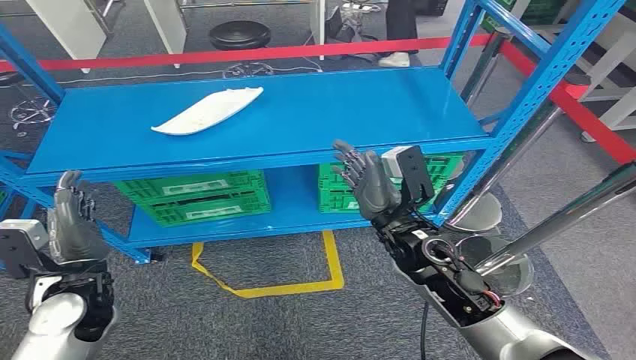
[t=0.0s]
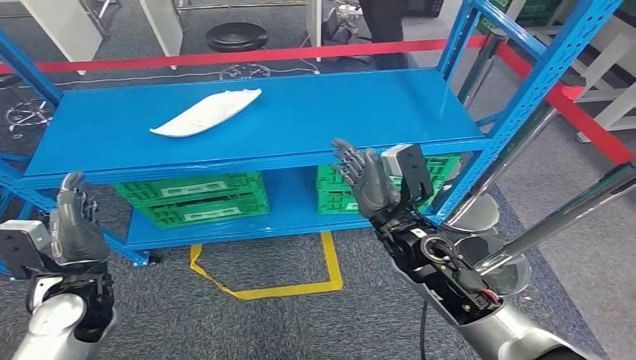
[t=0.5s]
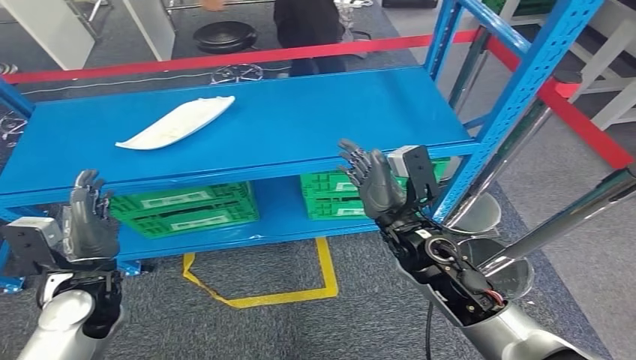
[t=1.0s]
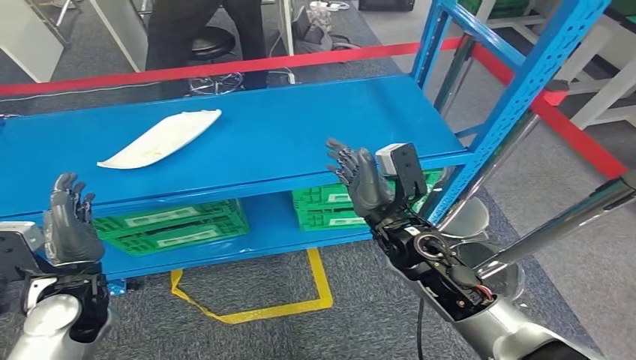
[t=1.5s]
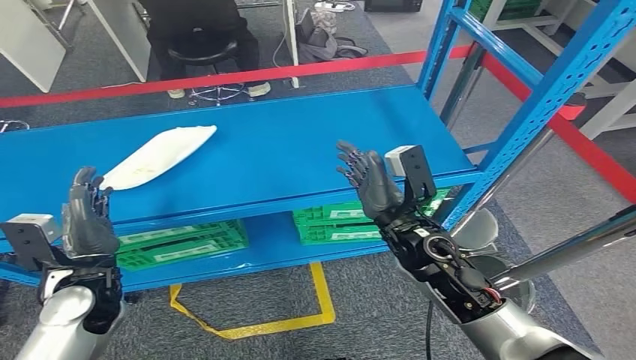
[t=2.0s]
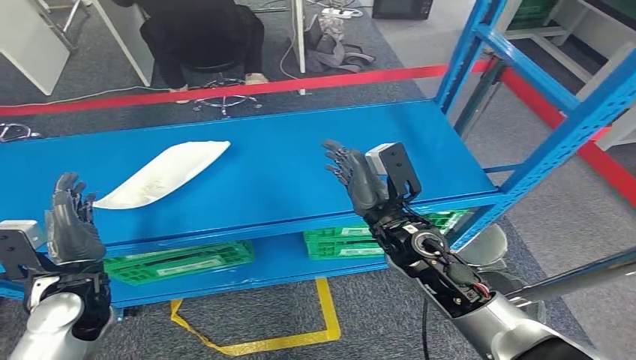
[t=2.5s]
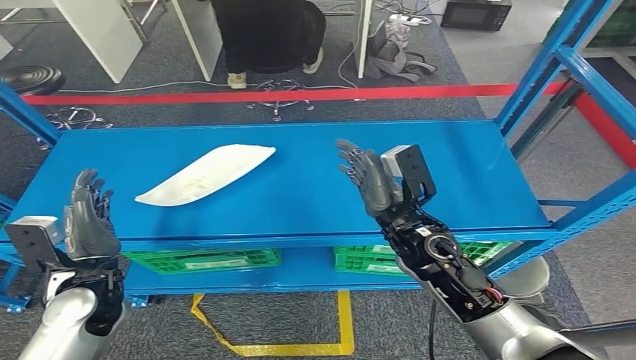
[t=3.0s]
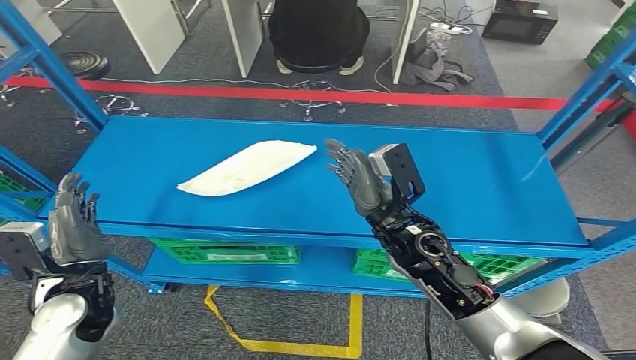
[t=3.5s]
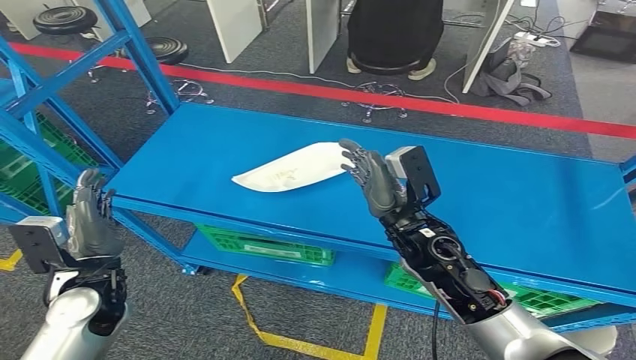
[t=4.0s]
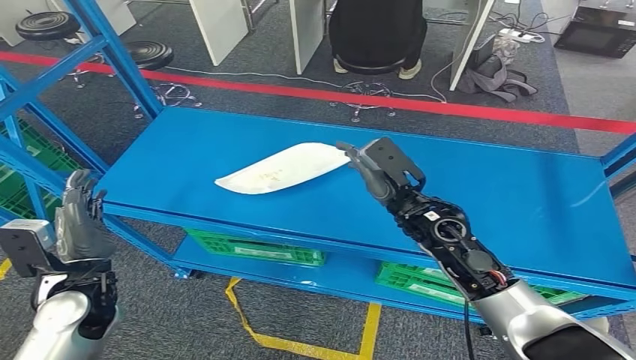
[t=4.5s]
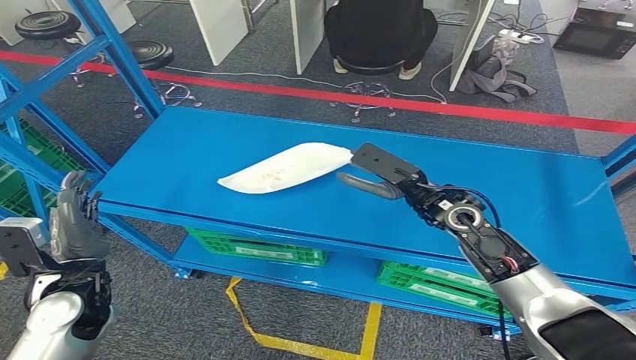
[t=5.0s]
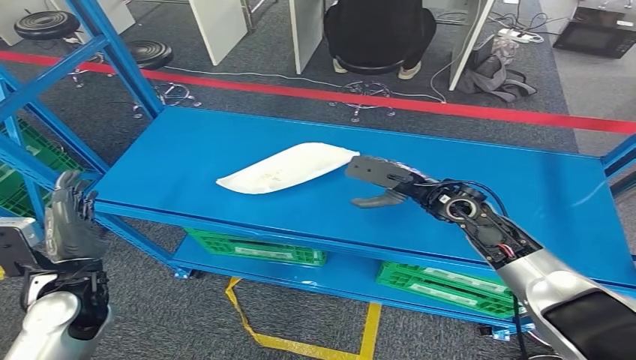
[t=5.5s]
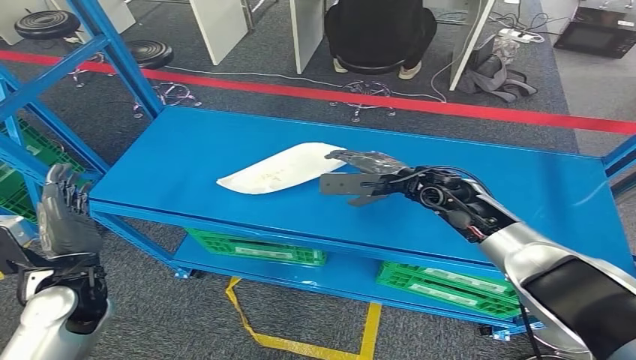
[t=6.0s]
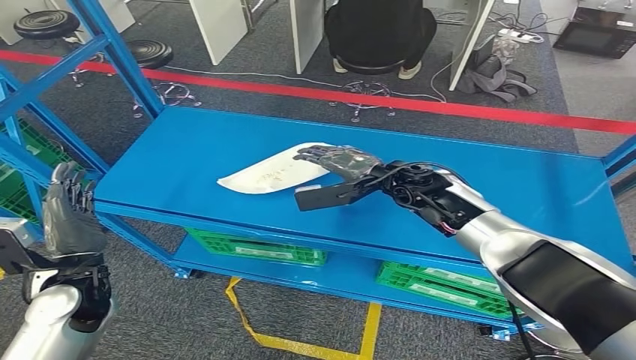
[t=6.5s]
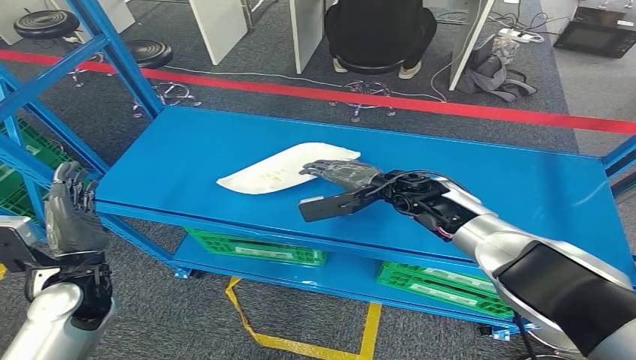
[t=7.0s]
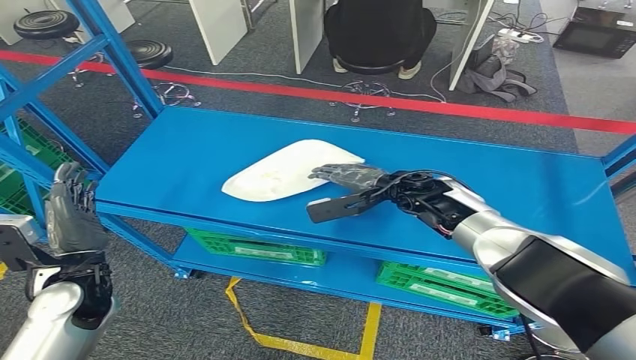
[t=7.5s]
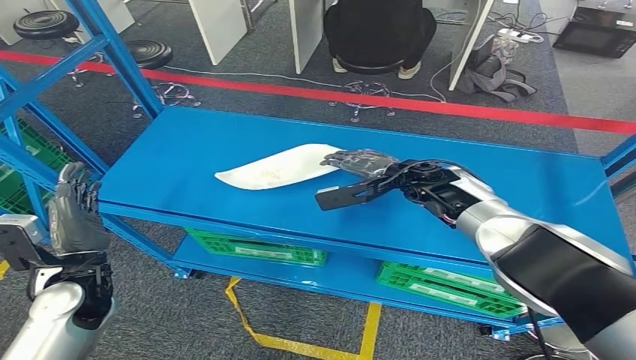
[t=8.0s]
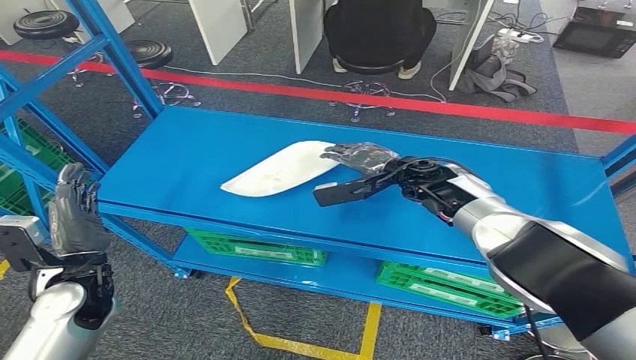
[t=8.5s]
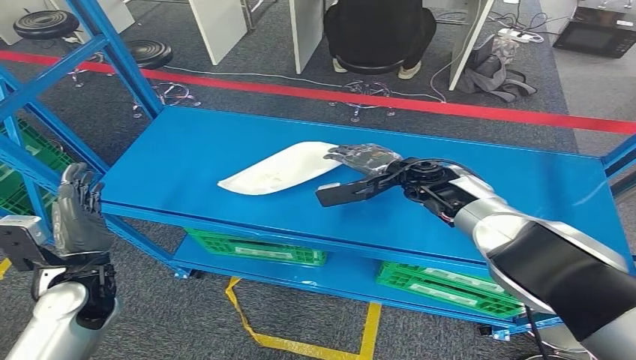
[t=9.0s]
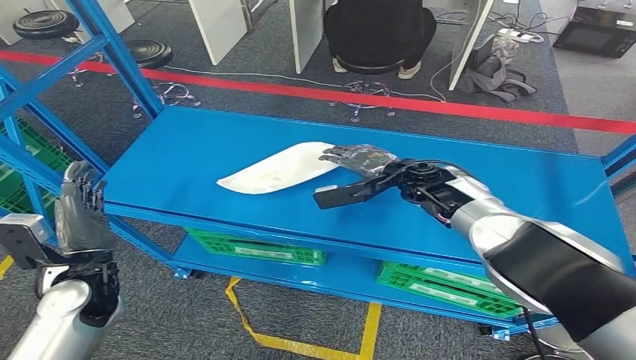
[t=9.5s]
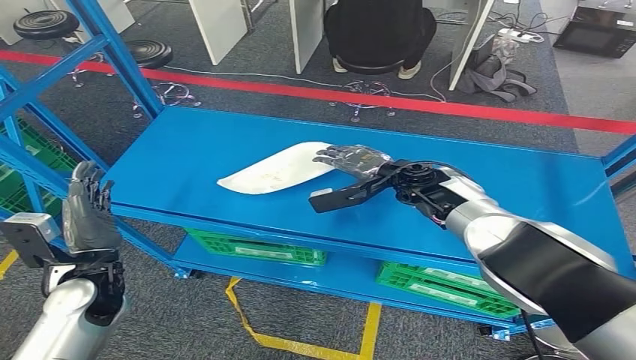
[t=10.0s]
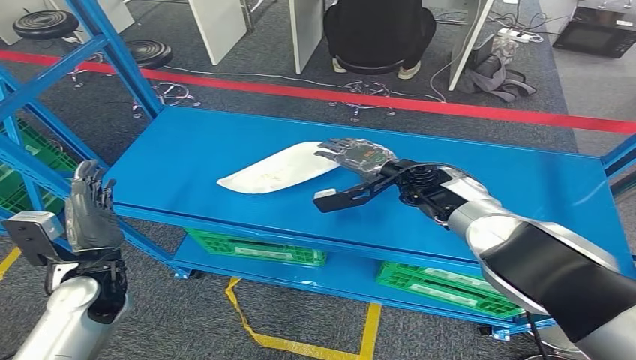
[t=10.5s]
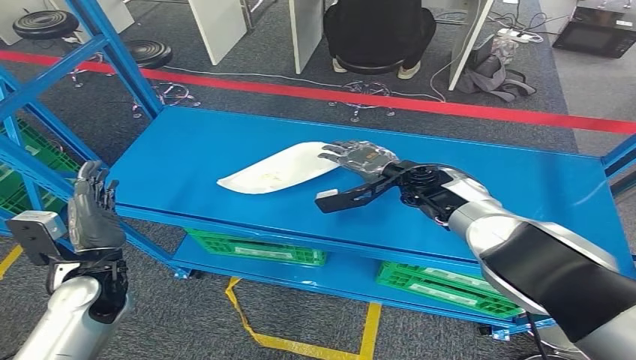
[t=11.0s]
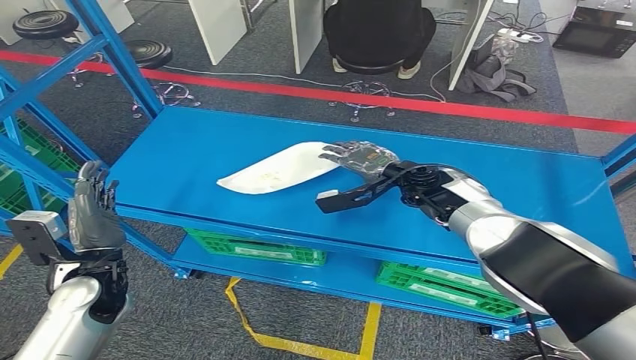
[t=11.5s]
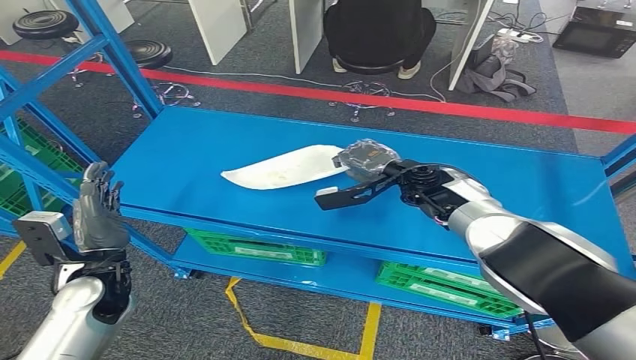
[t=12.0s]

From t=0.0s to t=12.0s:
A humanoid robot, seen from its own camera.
From t=8.0s to t=12.0s: The hands stay close to where they were, moving slightly.

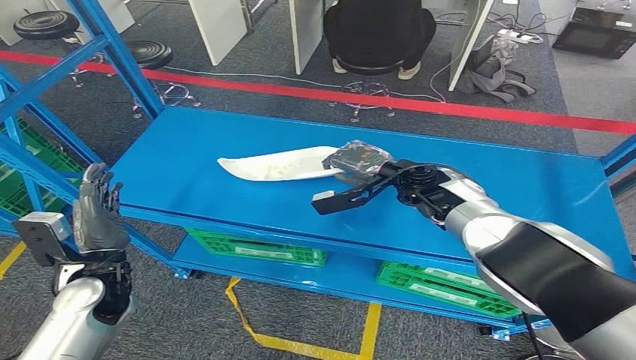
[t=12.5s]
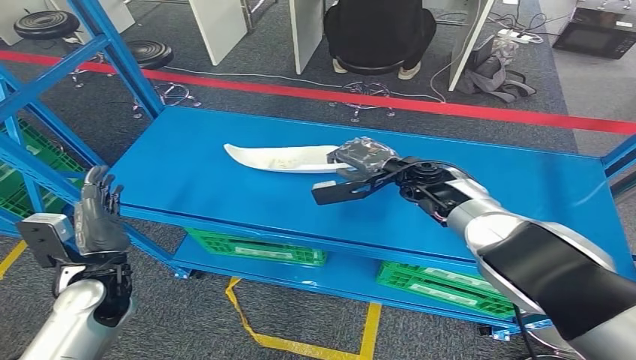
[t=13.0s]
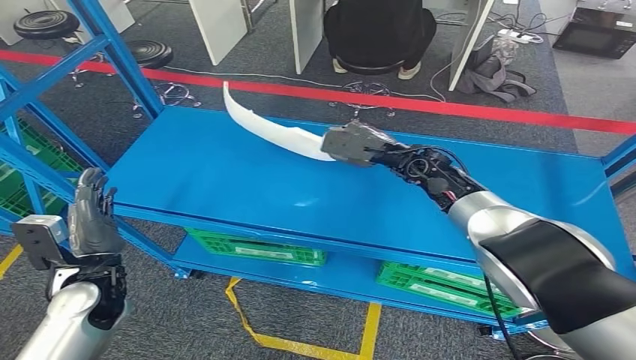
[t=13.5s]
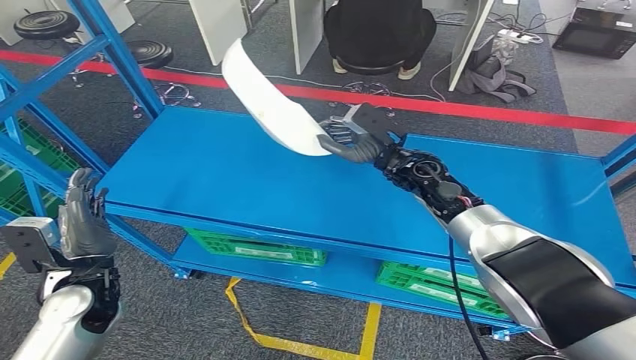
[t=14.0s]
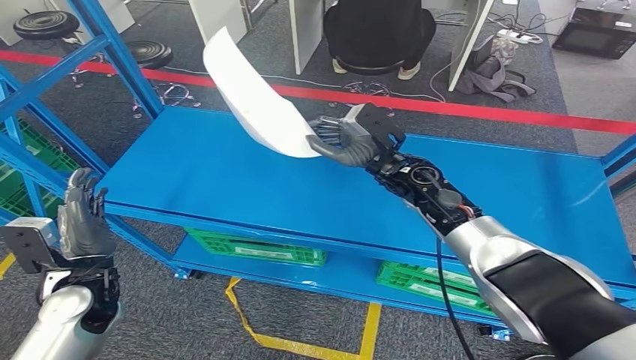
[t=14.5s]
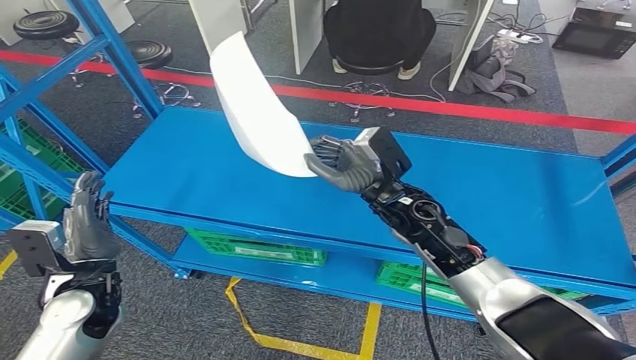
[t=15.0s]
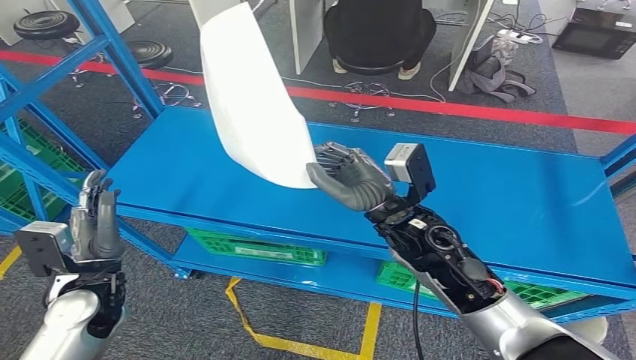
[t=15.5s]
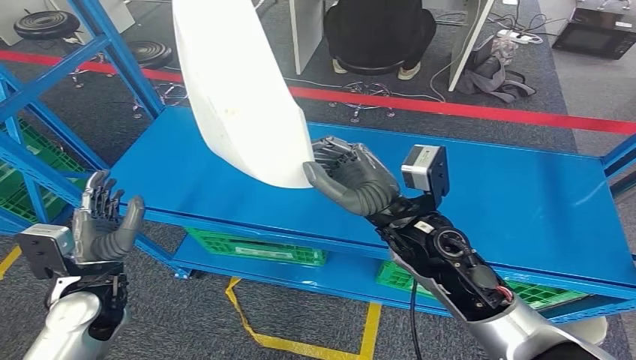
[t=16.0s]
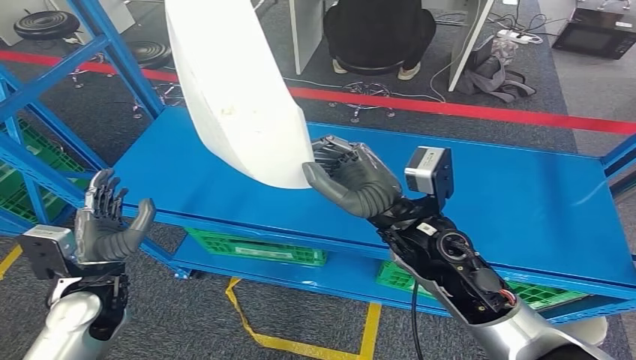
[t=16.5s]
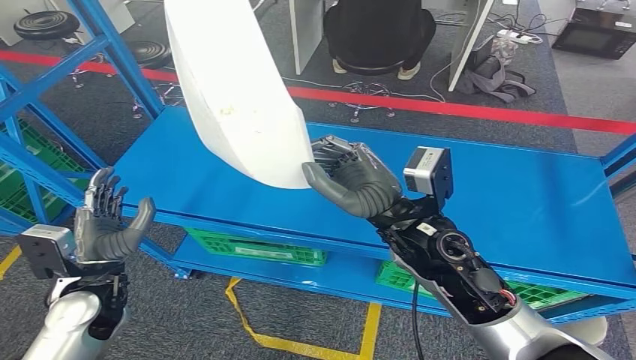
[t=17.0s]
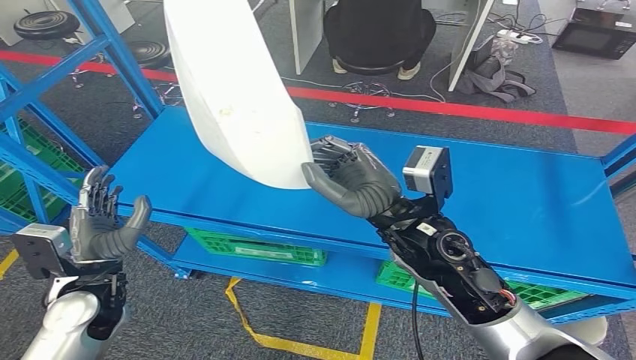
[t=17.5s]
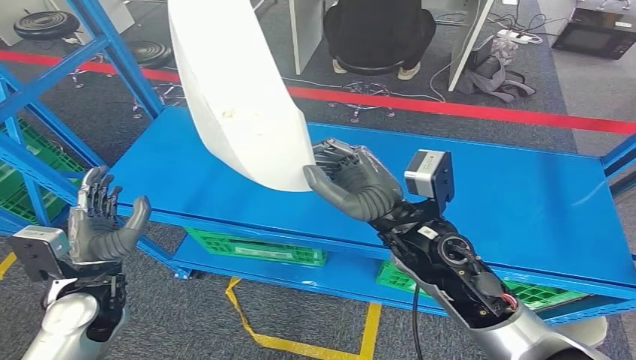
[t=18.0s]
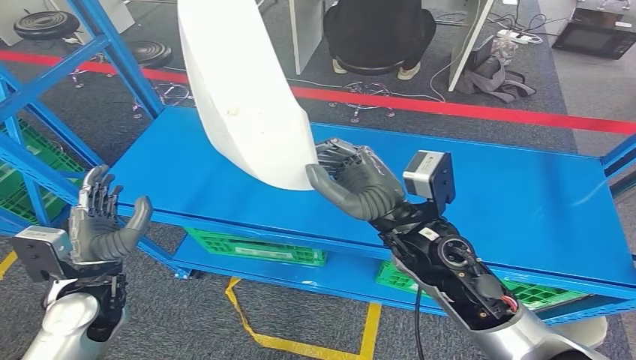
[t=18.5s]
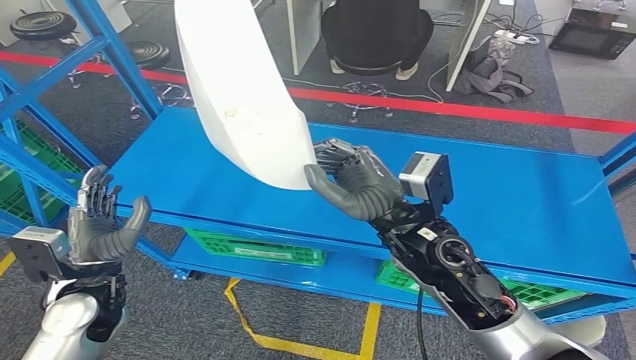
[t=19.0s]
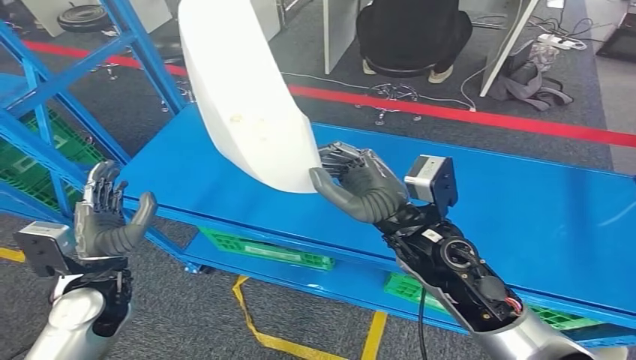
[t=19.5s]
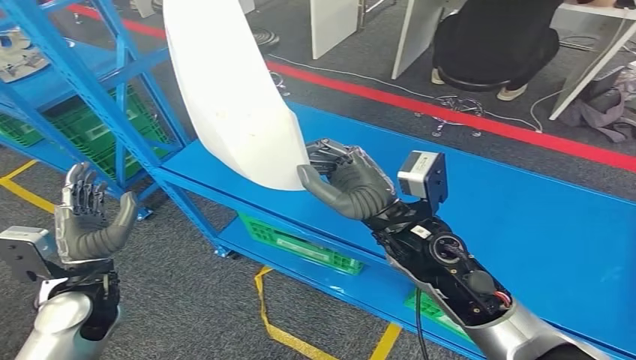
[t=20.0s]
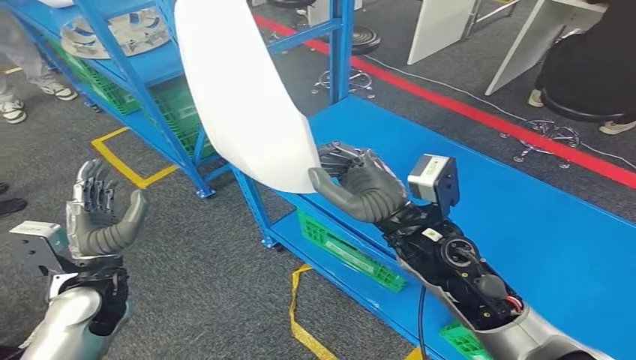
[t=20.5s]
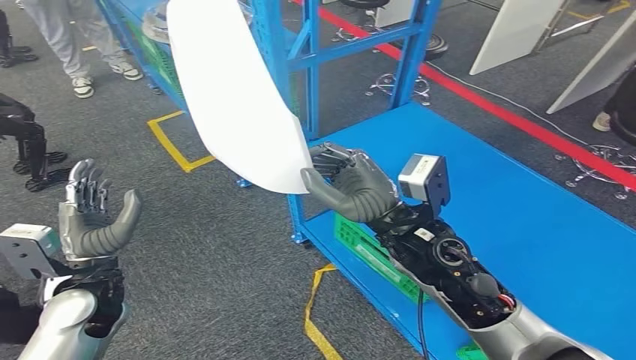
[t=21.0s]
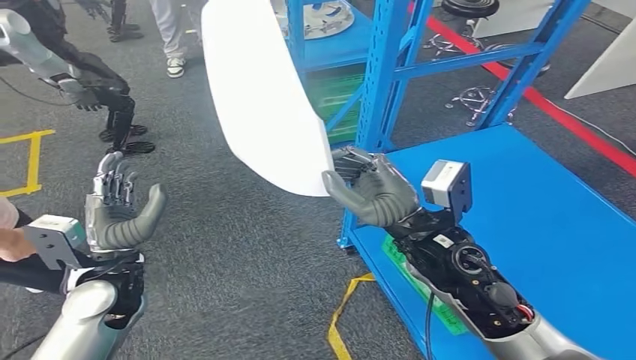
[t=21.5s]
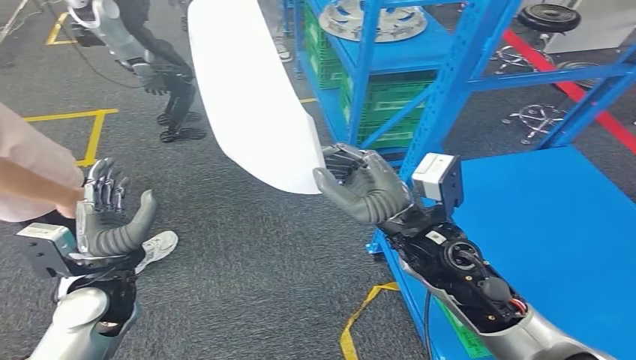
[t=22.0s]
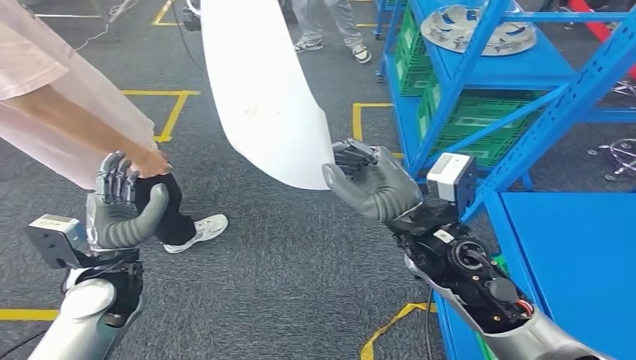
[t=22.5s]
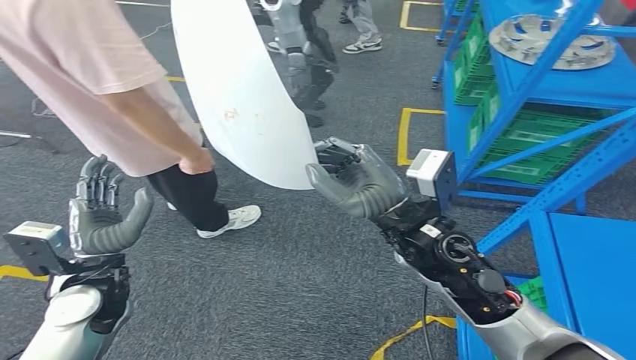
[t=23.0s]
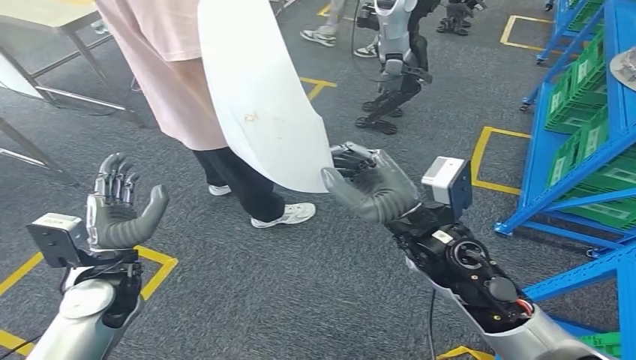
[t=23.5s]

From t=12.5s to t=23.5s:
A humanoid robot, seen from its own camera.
Step, from t=12.5s to t=17.0s: Take small components from the rack.
From t=12.5s to t=14.5s: The right hand goes about 5 cm to the left.
From t=16.0s to t=18.0s: The two hands keep their place.
